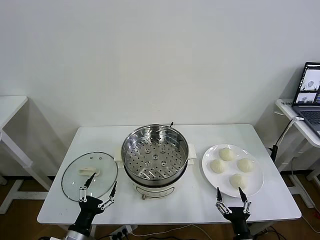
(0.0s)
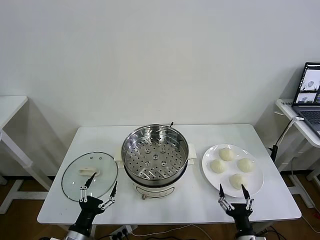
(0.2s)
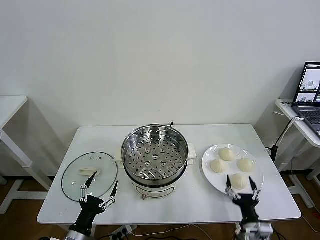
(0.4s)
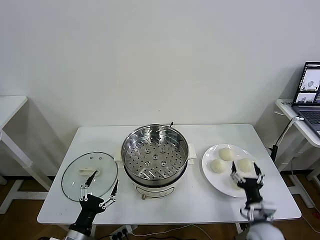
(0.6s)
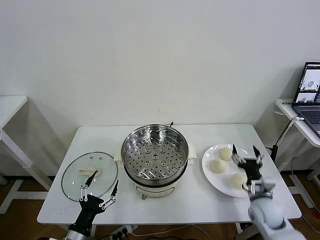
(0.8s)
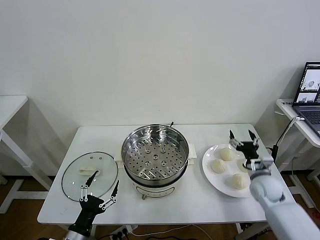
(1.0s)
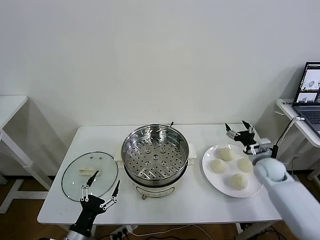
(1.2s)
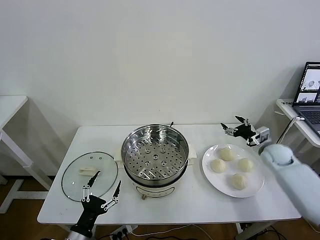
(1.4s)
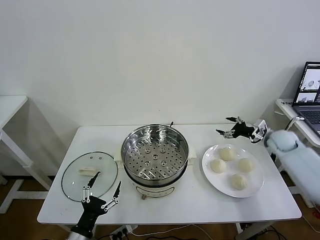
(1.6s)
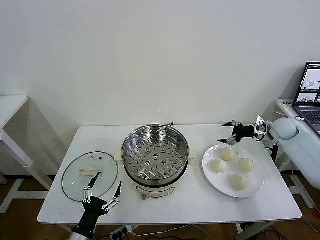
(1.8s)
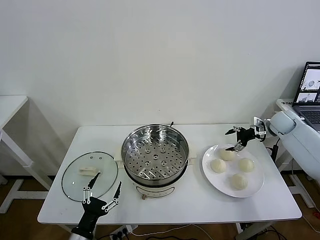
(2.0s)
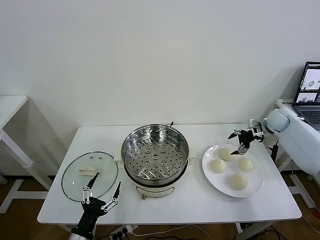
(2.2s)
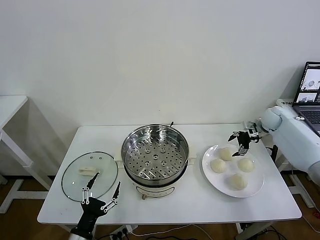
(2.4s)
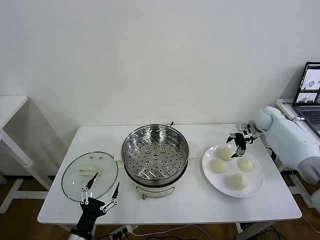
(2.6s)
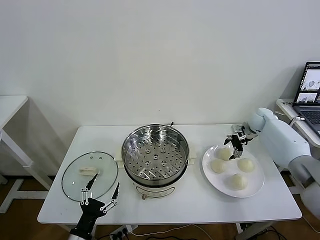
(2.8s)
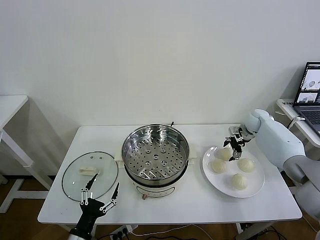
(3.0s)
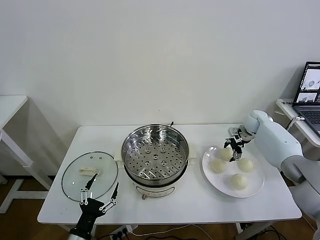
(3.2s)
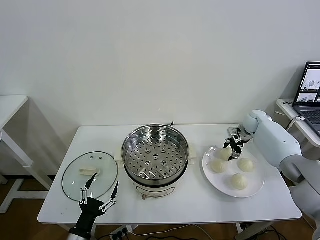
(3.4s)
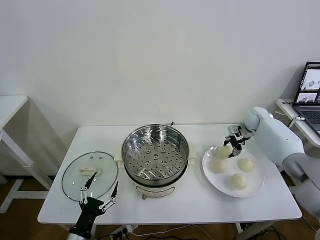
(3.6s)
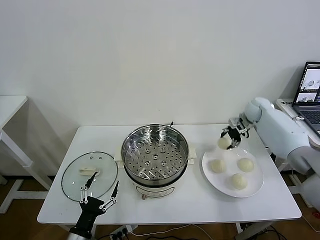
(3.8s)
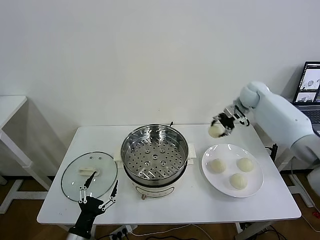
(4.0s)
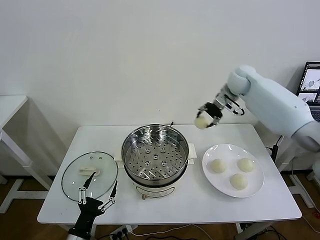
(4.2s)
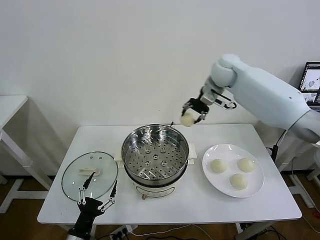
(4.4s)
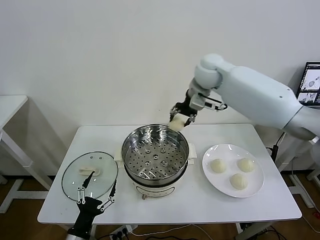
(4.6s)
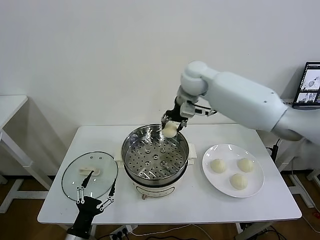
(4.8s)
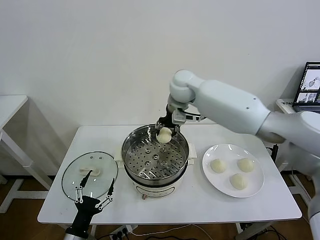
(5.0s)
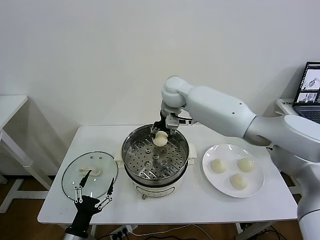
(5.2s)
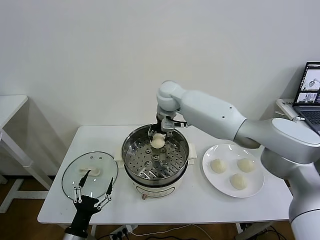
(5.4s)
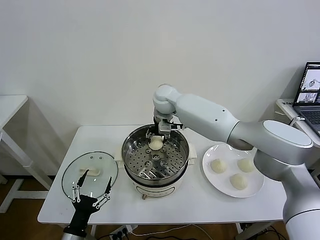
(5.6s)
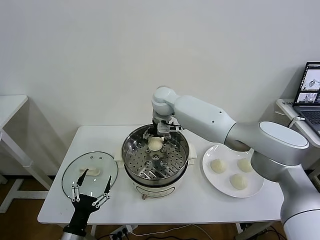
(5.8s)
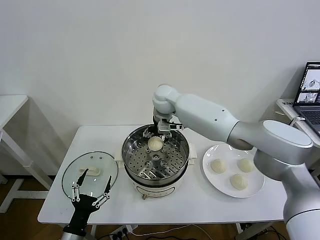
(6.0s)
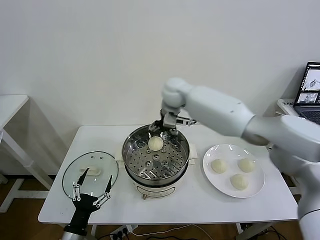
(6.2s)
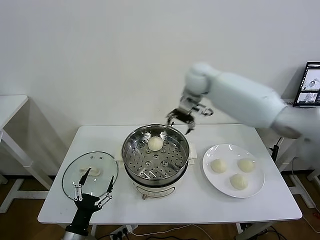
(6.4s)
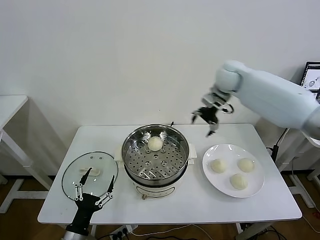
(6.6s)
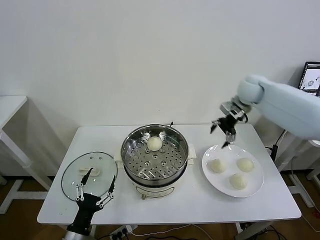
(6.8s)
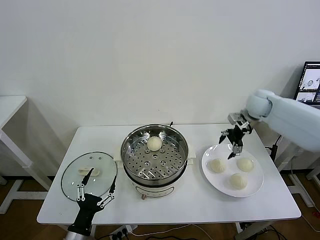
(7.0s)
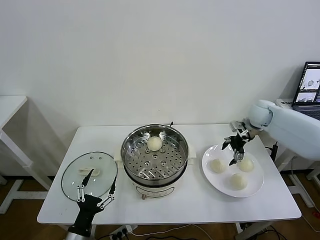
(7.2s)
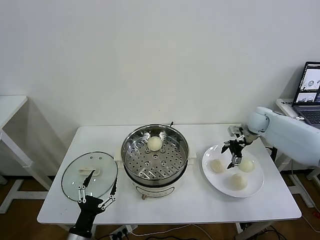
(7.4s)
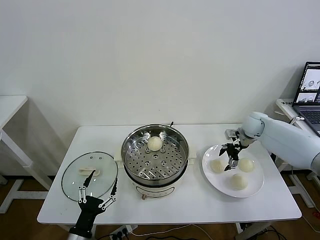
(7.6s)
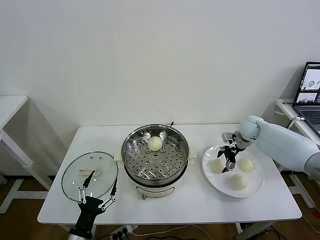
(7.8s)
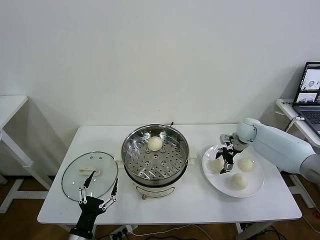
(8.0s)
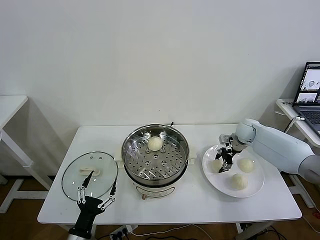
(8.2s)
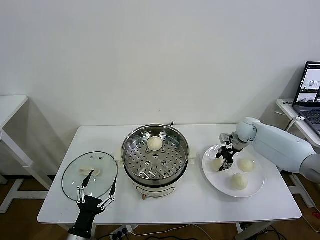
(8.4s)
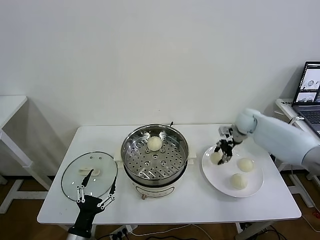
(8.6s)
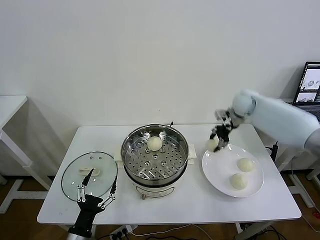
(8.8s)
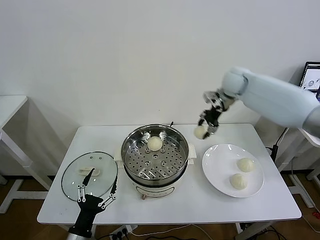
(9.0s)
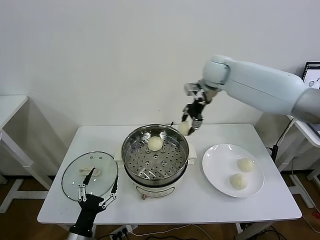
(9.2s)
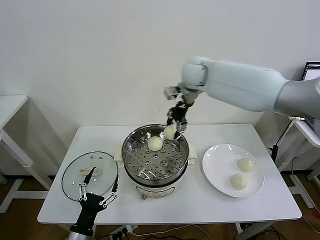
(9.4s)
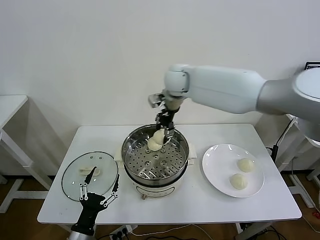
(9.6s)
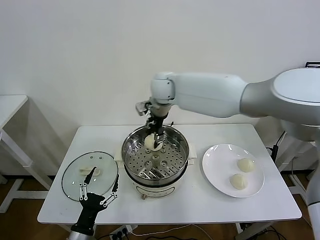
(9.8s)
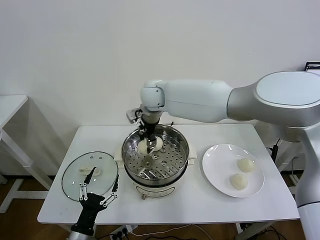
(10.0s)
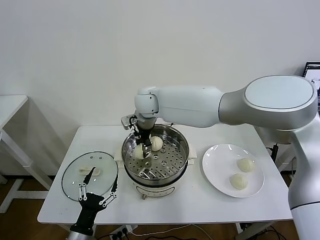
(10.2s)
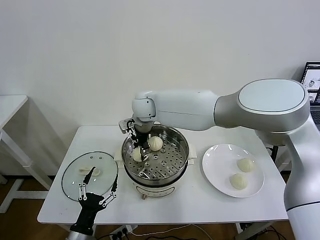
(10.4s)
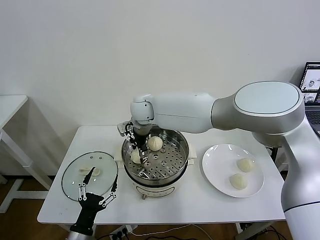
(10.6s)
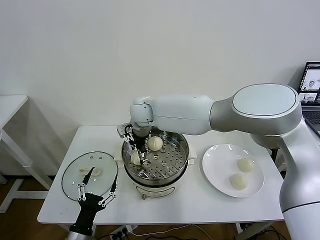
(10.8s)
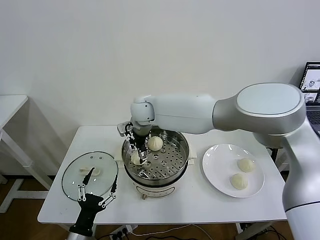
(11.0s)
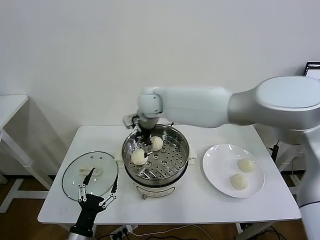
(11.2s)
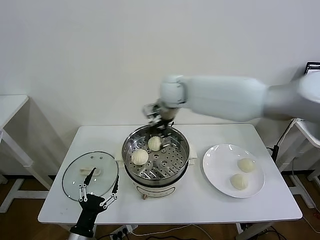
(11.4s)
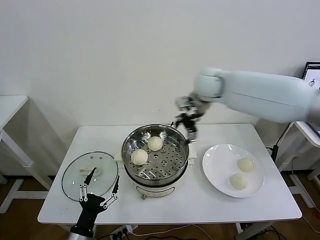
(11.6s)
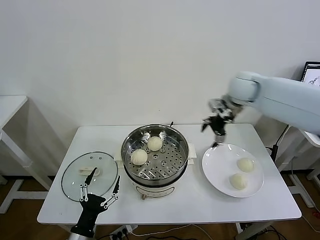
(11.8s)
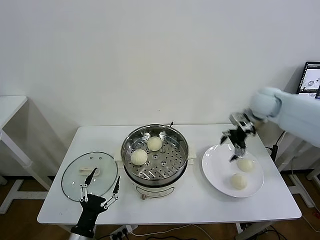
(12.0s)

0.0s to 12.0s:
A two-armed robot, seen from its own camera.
Task of the whole recording: take steamed baozi put them in steamer then cover it.
Step, 0.0s to 3.4s: Grasp the baozi in the plate with right gripper.
Step, 3.6s to 5.8s: Place the baozi on the steamer with right gripper.
Step, 6.0s to 8.2s: Grasp the baozi in the plate with right gripper.
Step, 8.4s to 10.8s: Place the baozi on the steamer with right gripper.
1.6s to 3.0s: The right gripper moves forward and to the left, some 10 cm.
3.0s to 4.4s: The right gripper shifts some 35 cm upward and to the left, and closes its fingers.
4.4s to 6.0s: The right gripper heads to the left and downward, covering roughly 15 cm, and opens up.
6.0s to 7.6s: The right gripper goes some 35 cm to the right and downward.
7.6s to 9.0s: The right gripper shifts about 25 cm upward and to the left, and closes up.
9.0s to 10.4s: The right gripper moves to the left, some 30 cm.
10.4s to 12.0s: The right gripper is displaced to the right by approximately 40 cm, and opens its fingers.

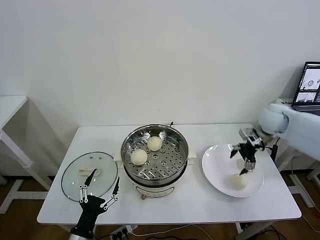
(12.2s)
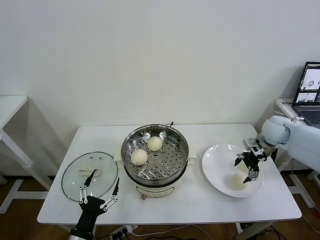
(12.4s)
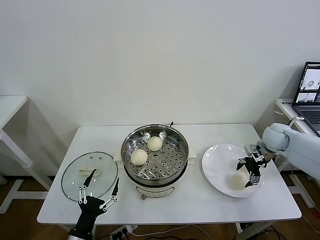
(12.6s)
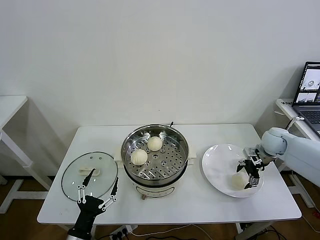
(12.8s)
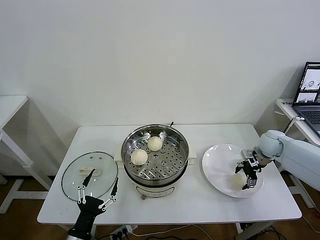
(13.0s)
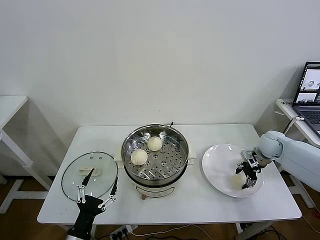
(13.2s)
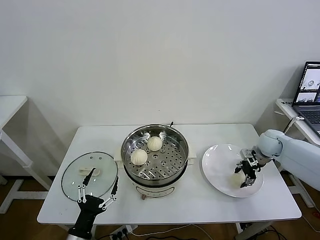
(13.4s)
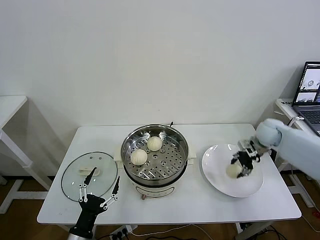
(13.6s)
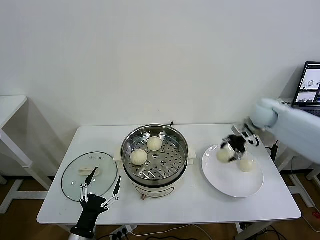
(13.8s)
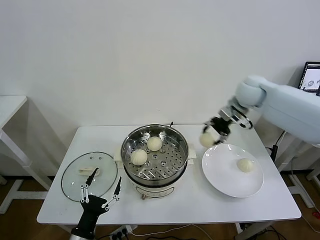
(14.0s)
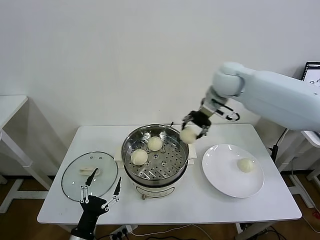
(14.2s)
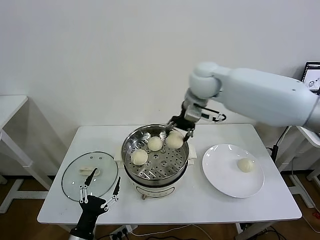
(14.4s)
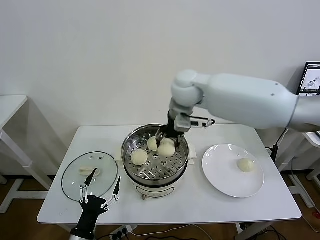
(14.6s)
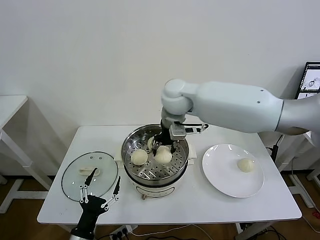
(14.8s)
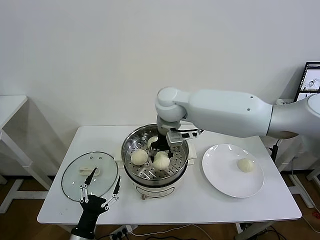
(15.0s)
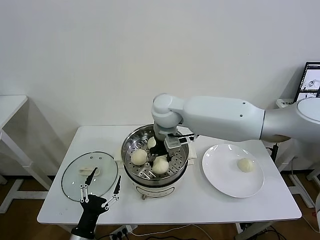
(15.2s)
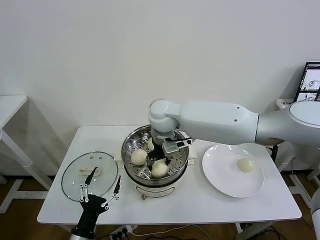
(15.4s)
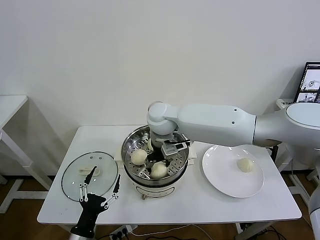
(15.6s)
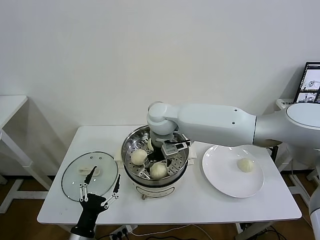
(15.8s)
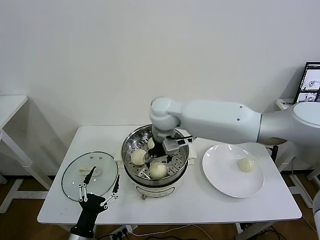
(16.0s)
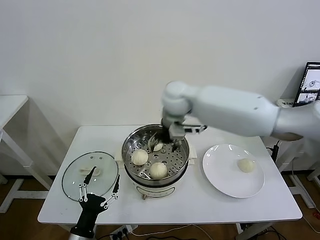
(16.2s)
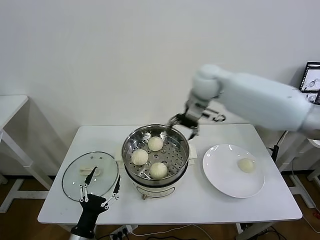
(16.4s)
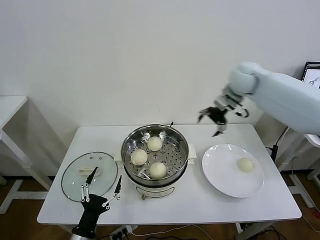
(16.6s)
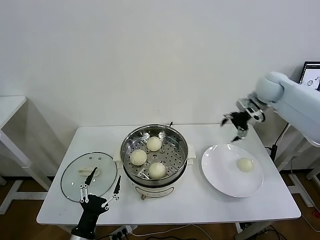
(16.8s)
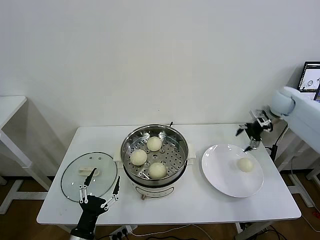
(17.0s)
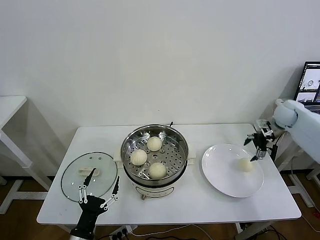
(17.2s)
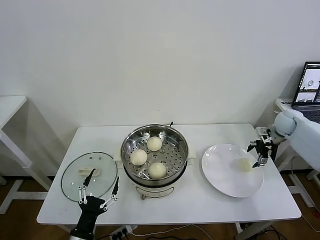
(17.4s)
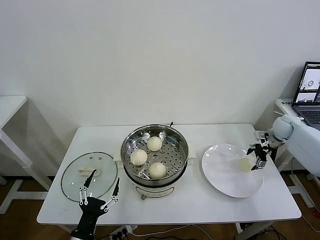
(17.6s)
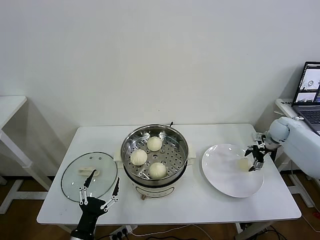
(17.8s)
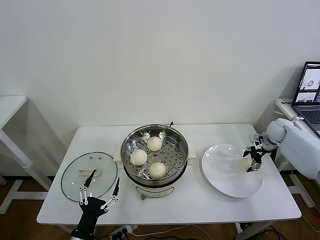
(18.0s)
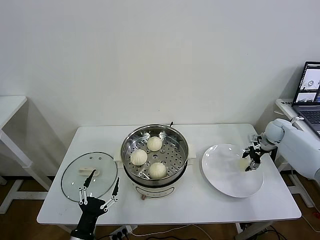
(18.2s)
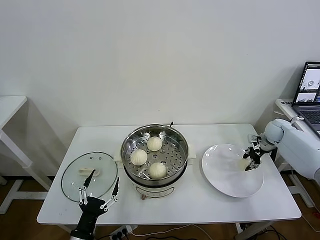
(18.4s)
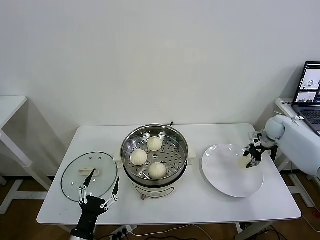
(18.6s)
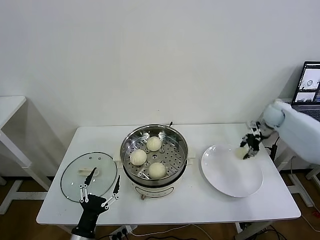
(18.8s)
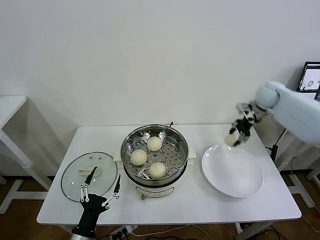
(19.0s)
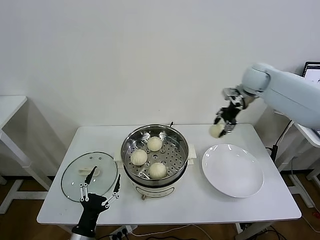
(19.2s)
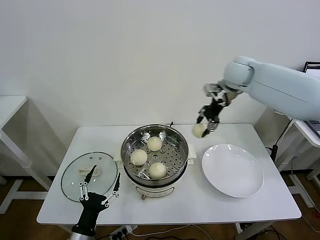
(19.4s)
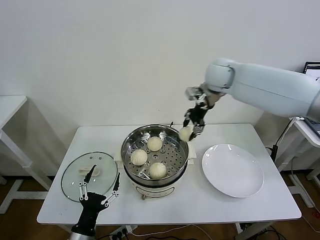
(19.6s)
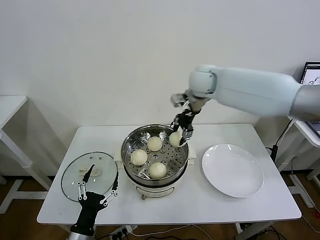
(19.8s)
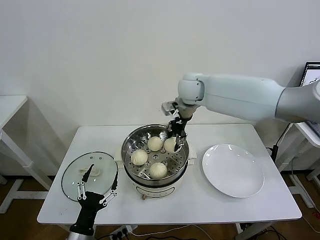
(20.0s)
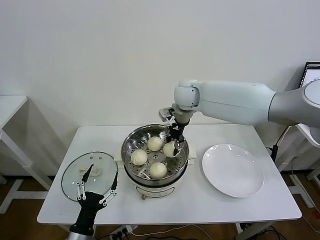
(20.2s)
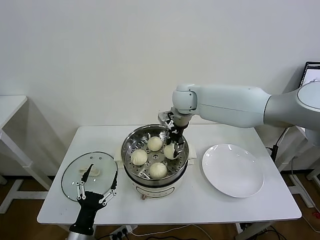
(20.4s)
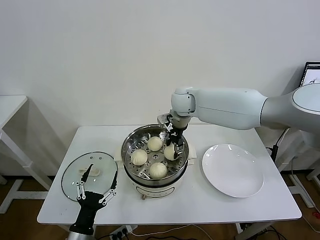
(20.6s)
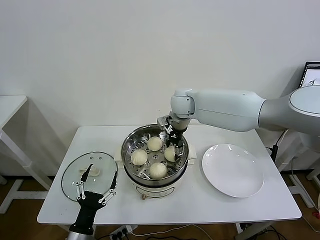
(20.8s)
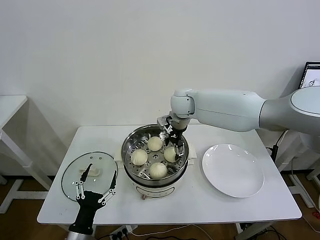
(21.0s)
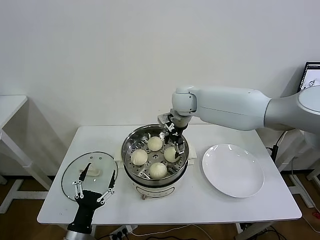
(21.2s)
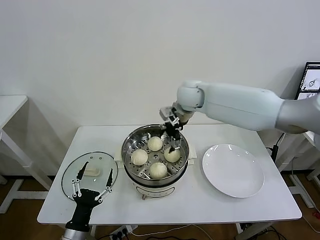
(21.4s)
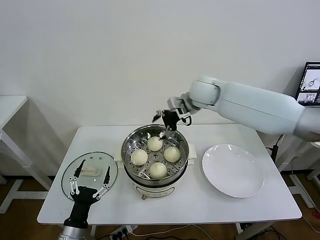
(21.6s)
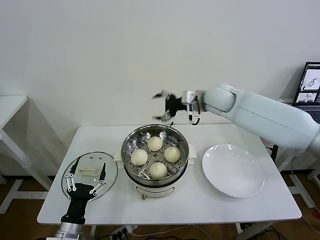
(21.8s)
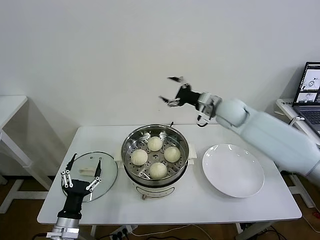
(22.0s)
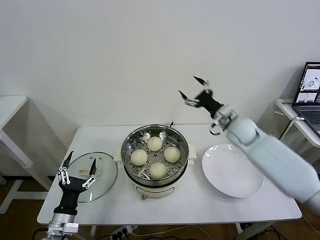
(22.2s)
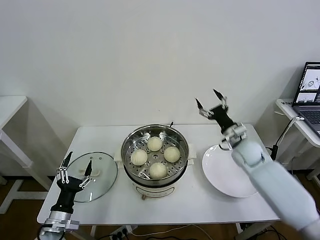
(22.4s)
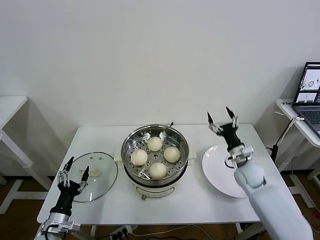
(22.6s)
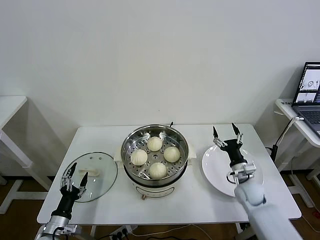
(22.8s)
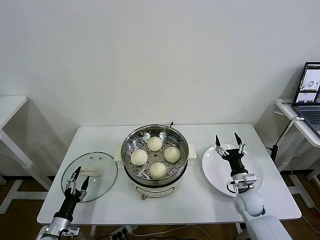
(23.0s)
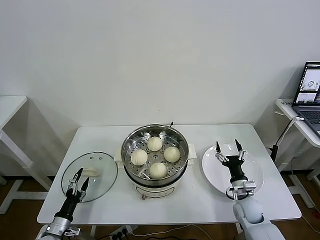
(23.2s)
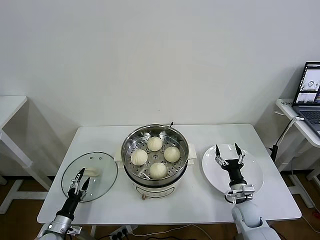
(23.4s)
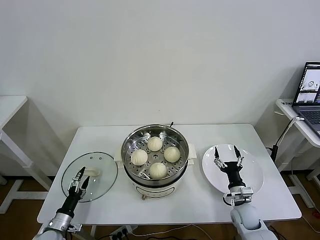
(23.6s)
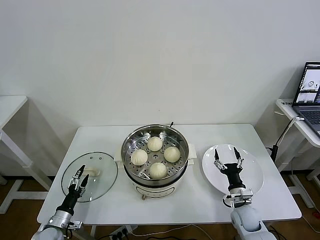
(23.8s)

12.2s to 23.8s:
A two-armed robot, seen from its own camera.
Task of the whole recording: take steamed baozi put them in steamer then cover it.
Step, 13.6s to 15.8s: Place the baozi on the steamer with right gripper.
Step, 16.0s to 18.4s: Grasp the baozi in the plate with right gripper.
Step, 18.6s to 21.0s: Place the baozi on the steamer with right gripper.
12.2s to 13.6s: The right gripper closes.
13.6s to 15.0s: The right gripper moves to the left, some 35 cm.
15.0s to 16.6s: The right gripper travels to the right by roughly 25 cm, and opens up.
16.6s to 18.0s: The right gripper shifts about 30 cm downward and to the right.
18.0s to 19.4s: The right gripper travels to the left and upward by some 35 cm, and closes its fingers.
19.4s to 21.0s: The right gripper shifts approximately 20 cm to the left and downward, and opens up.
21.0s to 22.4s: The right gripper shifts approximately 30 cm to the right, downward and backward. The left gripper heads to the left and forward, covering about 10 cm.
22.4s to 23.8s: The right gripper moves downward and backward, approximately 25 cm, while the left gripper shifts about 15 cm downward and to the left.
